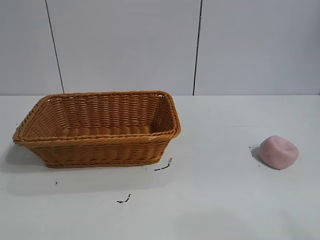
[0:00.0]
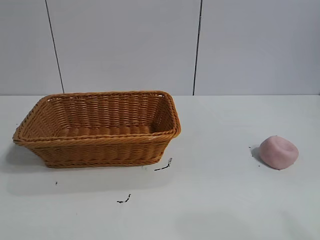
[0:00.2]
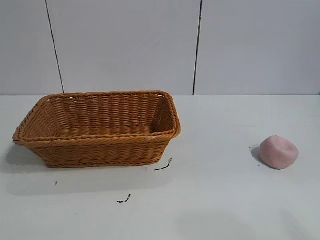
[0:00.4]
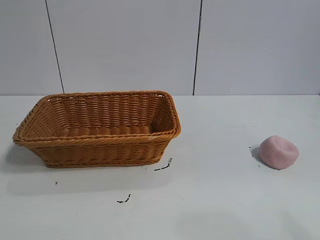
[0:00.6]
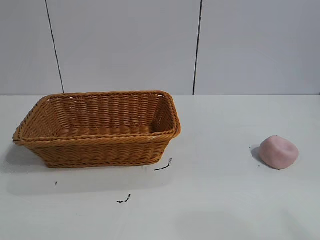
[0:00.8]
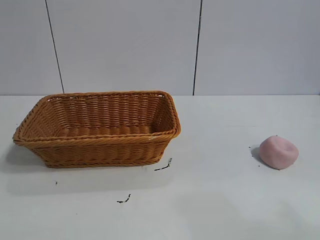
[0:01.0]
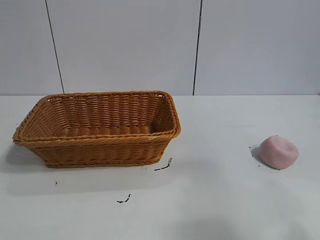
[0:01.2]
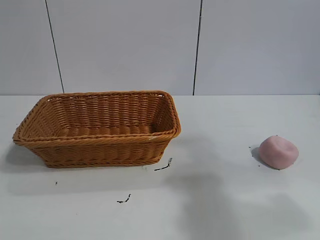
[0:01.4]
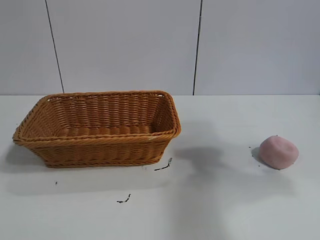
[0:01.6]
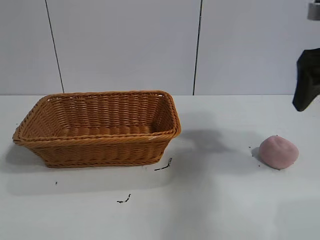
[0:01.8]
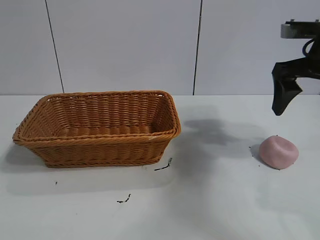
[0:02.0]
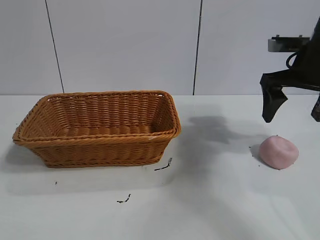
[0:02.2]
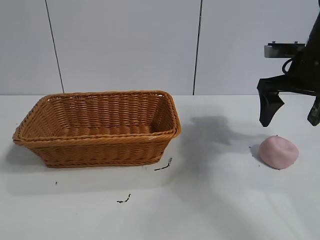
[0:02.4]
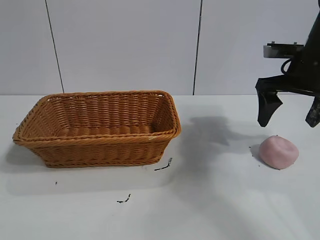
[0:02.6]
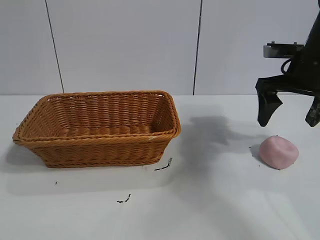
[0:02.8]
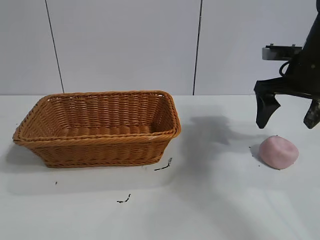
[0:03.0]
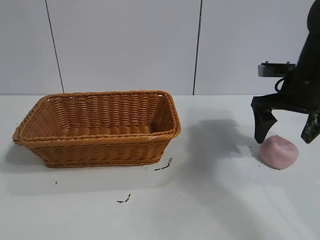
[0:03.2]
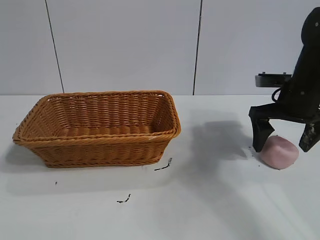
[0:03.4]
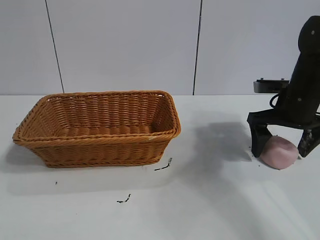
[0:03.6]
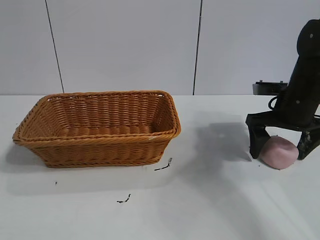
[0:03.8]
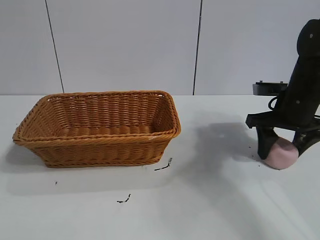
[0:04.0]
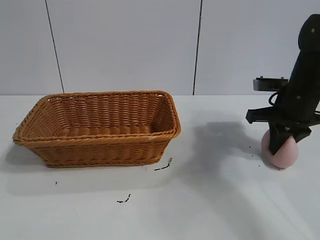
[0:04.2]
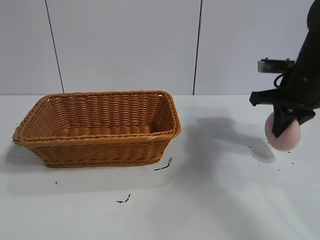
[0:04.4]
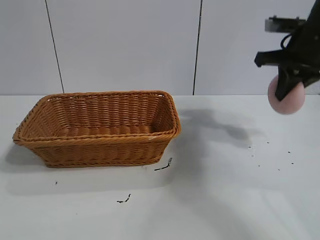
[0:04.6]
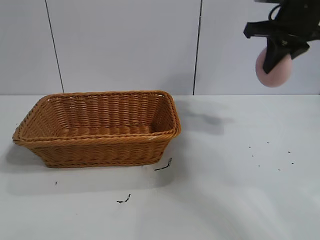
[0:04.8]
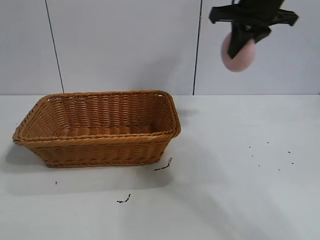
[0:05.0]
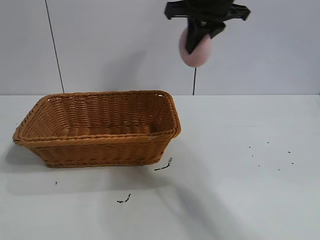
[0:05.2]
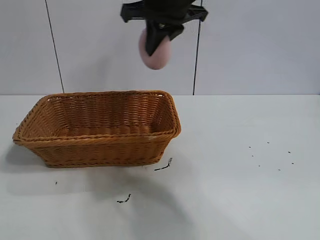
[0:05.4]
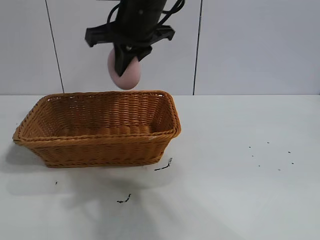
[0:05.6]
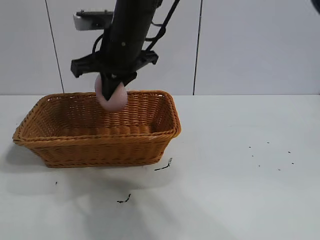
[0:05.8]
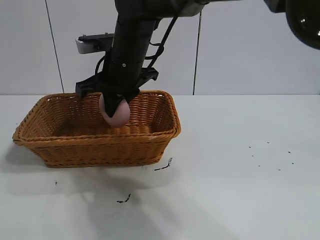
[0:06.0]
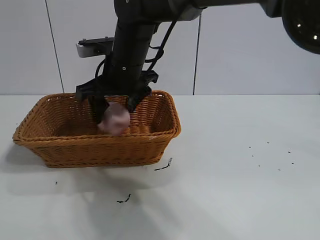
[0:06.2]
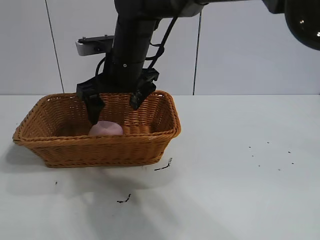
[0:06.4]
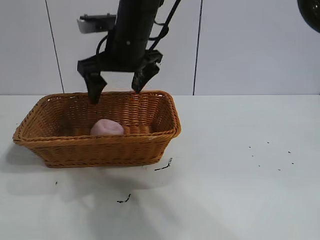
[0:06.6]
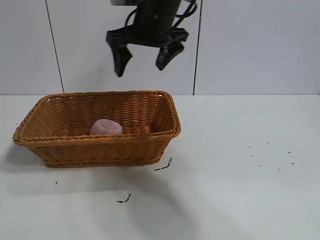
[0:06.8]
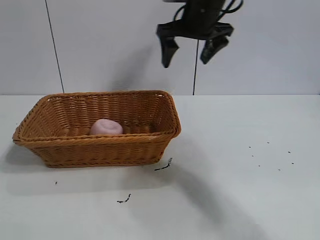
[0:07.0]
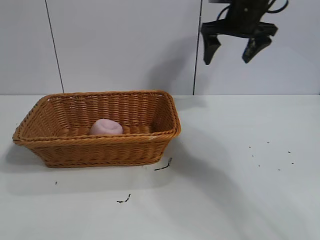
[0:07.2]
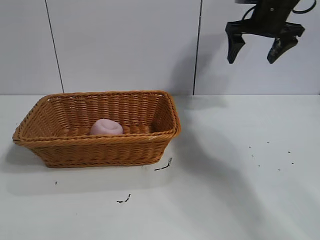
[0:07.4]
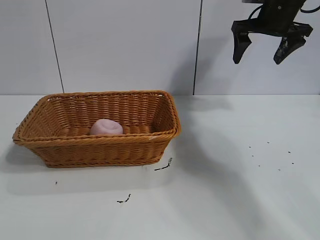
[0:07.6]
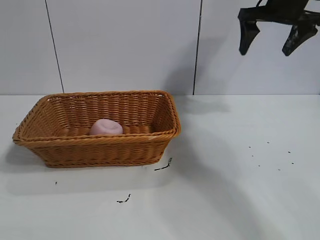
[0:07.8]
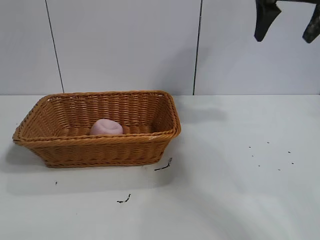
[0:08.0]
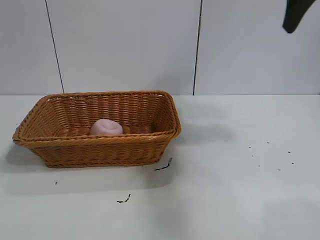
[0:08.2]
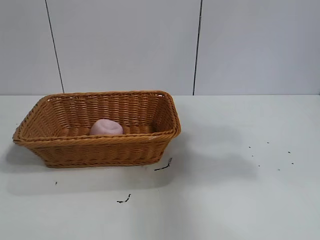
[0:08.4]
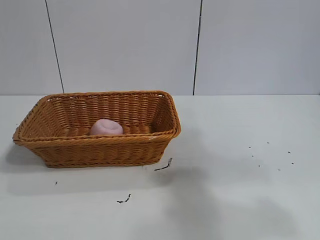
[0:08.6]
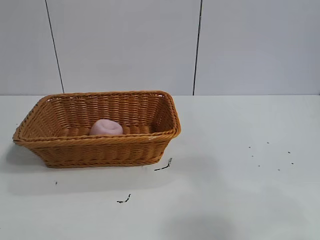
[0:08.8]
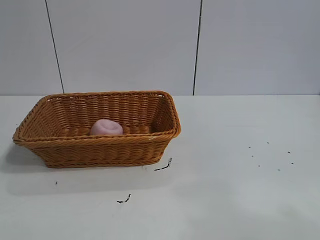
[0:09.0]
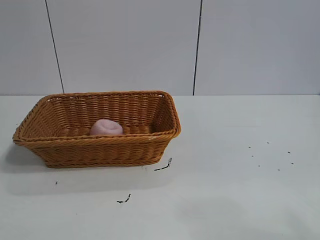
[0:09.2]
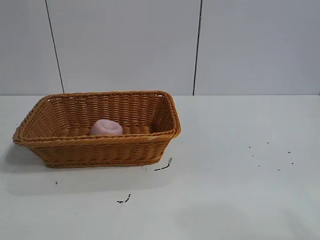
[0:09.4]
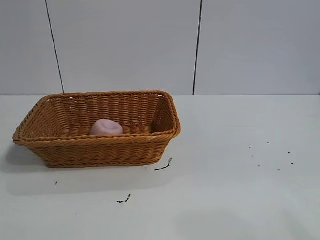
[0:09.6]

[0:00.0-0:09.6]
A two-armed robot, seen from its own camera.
Task of the whole recording: pick up the peach and put it into the basket.
Step, 0:00.8 to 0:04.0: Grasp the peach with right gripper.
Step, 0:04.4 to 0:06.2: Place the peach in the basket with right gripper.

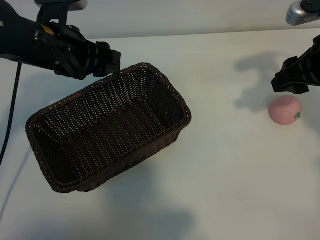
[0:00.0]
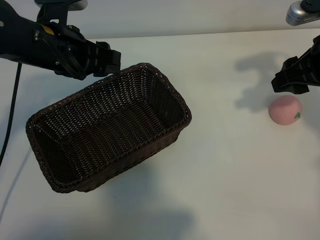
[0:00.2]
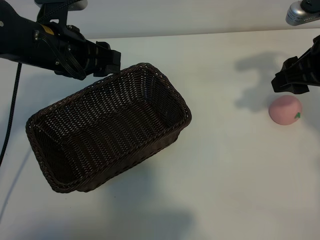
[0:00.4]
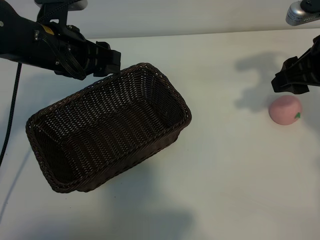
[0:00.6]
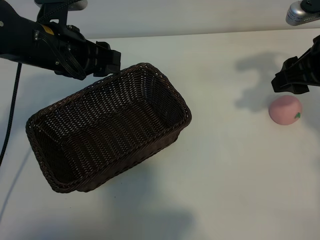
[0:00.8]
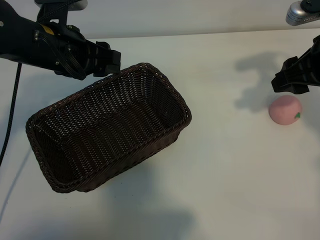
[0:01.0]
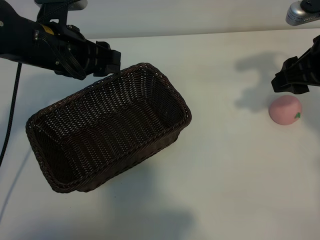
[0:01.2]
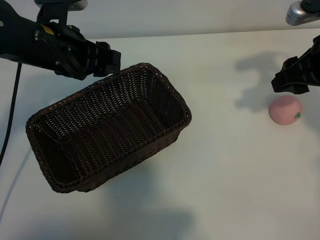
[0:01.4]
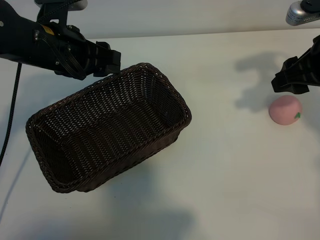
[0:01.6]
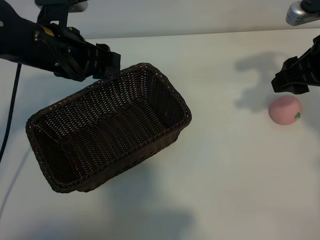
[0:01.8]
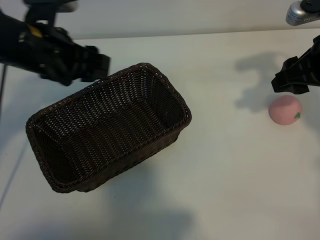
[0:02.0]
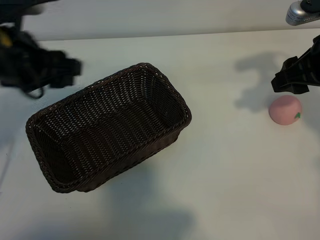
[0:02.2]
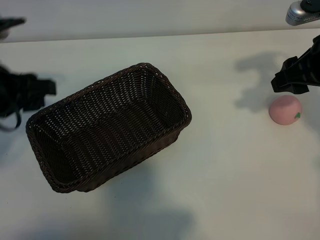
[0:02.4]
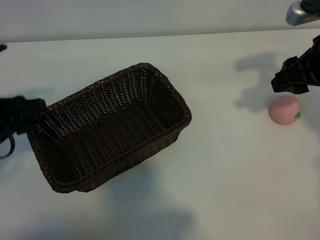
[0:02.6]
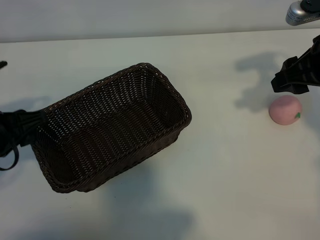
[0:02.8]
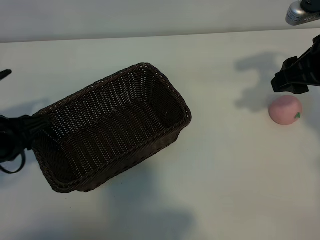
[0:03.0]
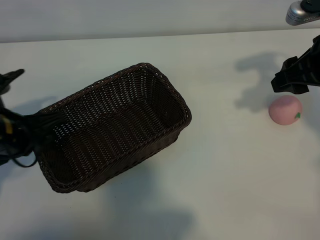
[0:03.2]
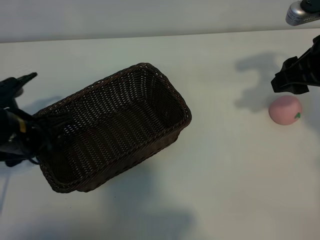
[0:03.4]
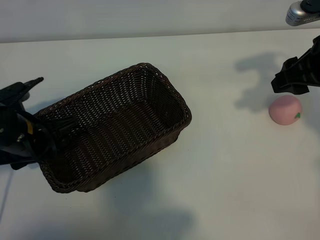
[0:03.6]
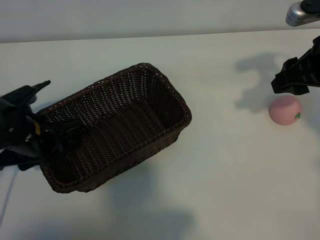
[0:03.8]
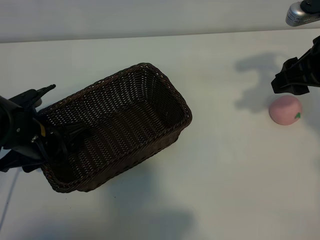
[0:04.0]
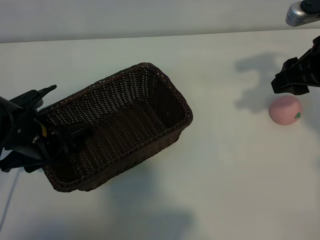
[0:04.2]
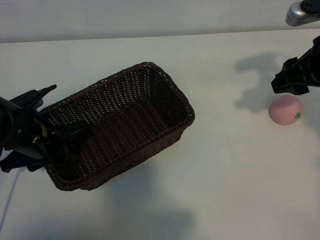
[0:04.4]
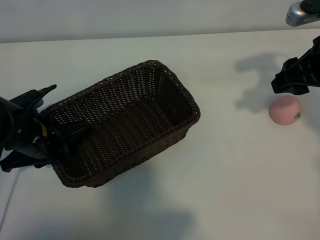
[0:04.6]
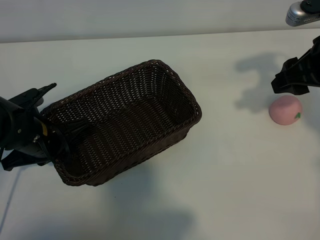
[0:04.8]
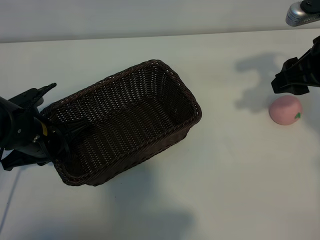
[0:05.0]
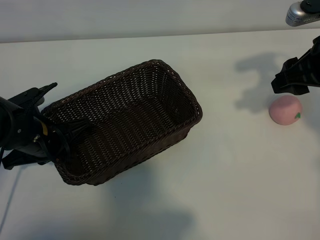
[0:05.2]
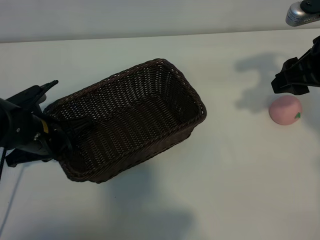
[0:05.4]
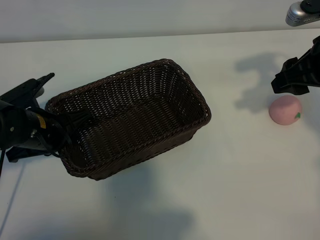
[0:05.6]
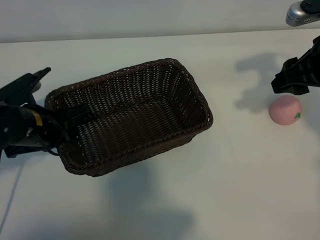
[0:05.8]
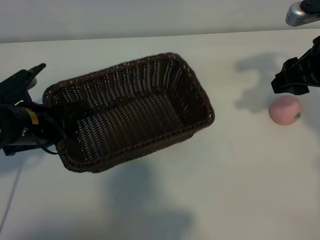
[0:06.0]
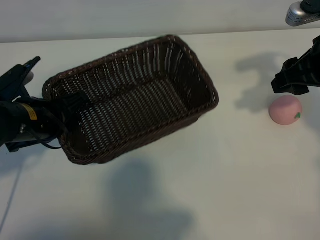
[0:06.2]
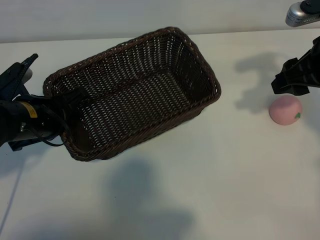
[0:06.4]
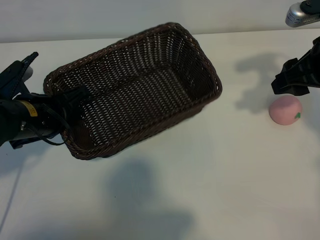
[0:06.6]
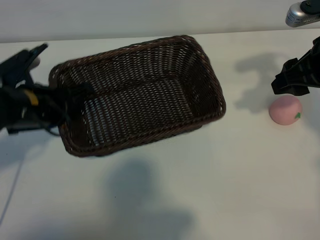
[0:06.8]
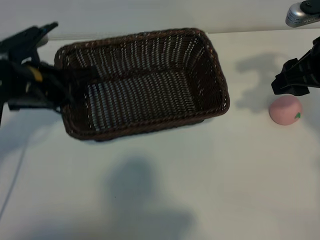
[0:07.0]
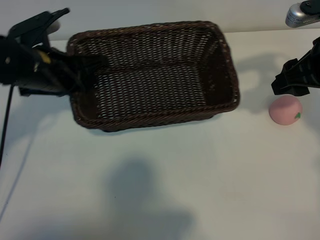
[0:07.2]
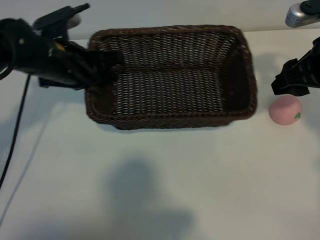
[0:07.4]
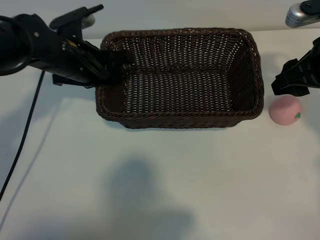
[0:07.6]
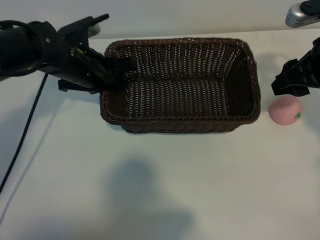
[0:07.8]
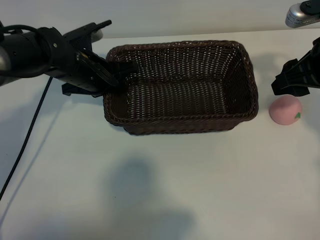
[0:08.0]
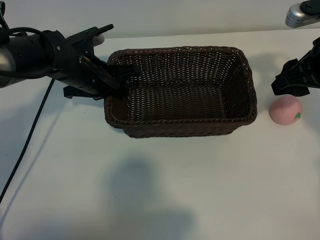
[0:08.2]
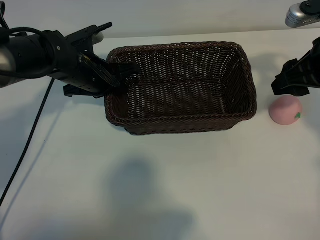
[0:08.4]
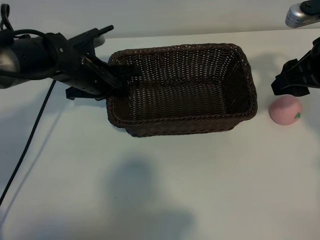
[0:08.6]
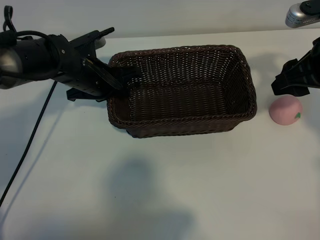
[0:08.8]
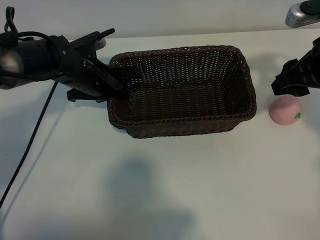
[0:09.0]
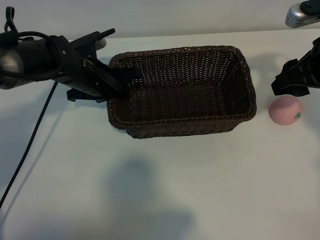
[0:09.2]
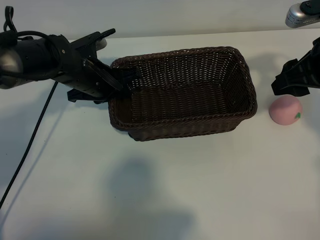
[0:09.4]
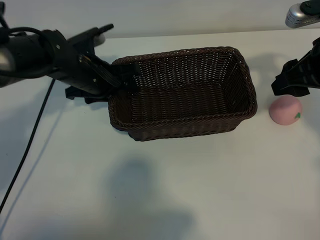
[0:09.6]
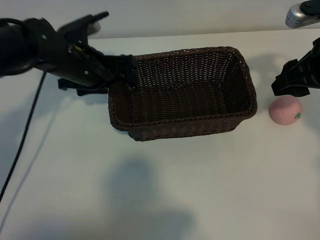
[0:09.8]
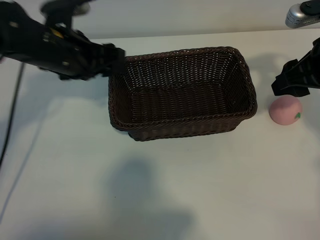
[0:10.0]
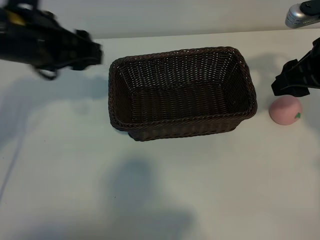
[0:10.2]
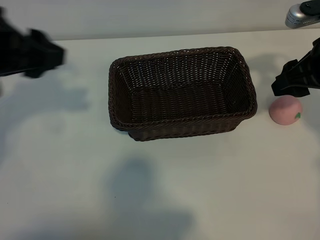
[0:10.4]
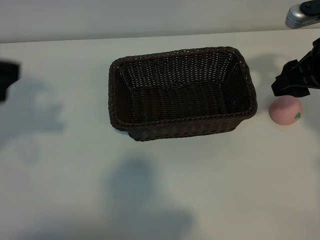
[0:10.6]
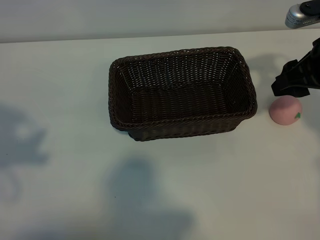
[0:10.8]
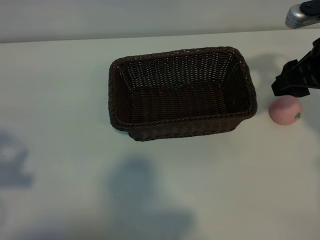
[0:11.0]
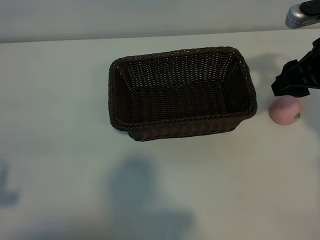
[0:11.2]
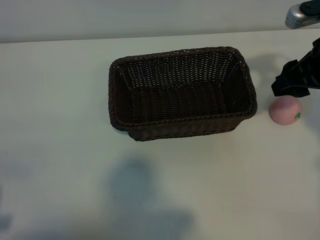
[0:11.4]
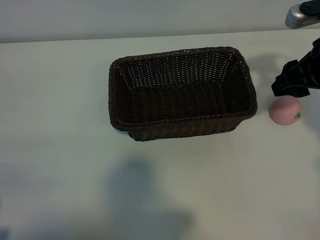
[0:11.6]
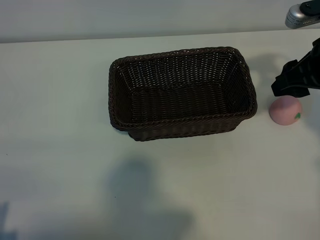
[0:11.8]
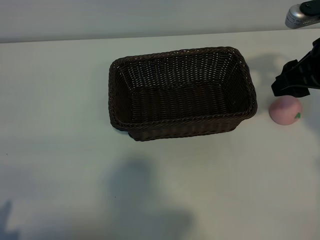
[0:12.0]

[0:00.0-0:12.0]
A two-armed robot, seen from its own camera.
Task of the whole recording: pick up the peach and put it into the basket.
Step, 0:01.8 to 0:04.6: Grasp the basket with left gripper.
Step, 0:04.8 to 0:09.8: Place the basket in the center of view with left gripper.

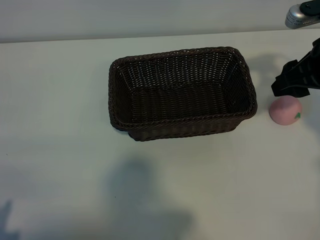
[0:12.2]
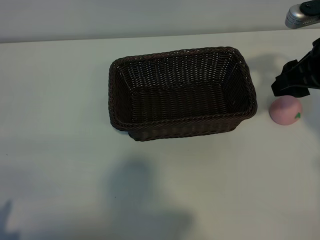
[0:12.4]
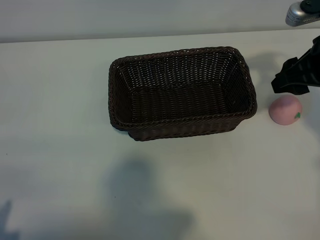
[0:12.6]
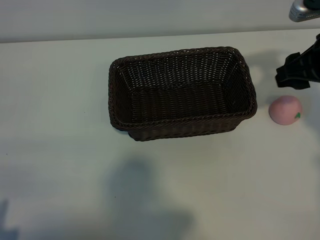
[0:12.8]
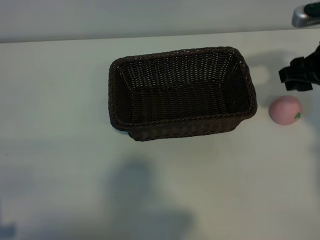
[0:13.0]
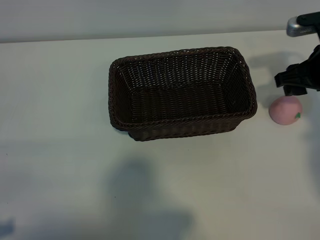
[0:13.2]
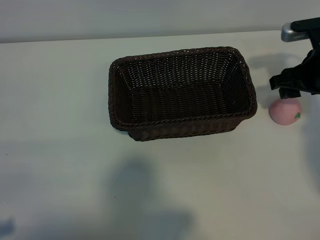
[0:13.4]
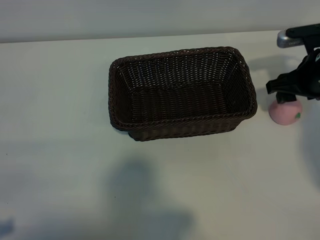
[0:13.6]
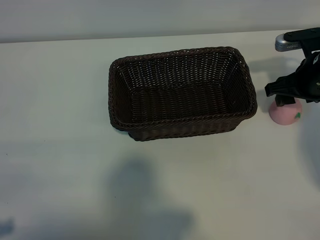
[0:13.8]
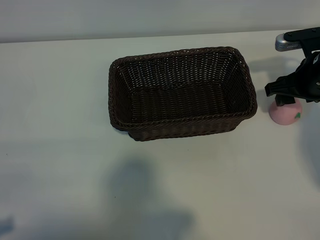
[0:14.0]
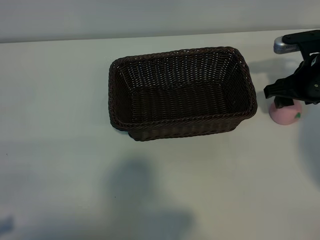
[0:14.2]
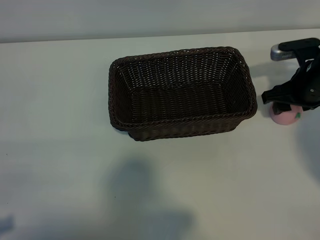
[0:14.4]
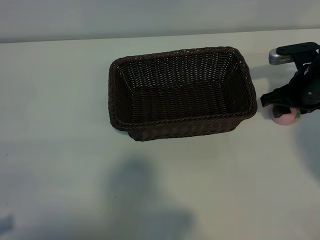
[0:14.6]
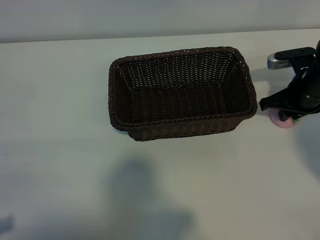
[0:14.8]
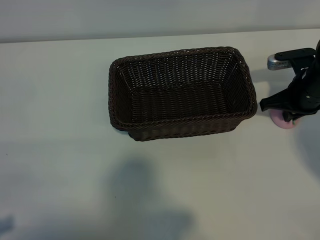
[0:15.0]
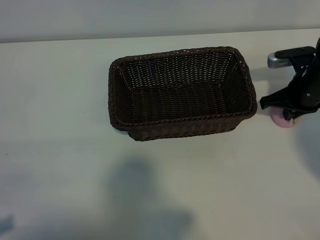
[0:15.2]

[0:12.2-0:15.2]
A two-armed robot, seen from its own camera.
Task of the whole recording: pick up the peach and put it into the basket.
Step, 0:12.2 to 0:15.0: Grasp the peach with right gripper.
